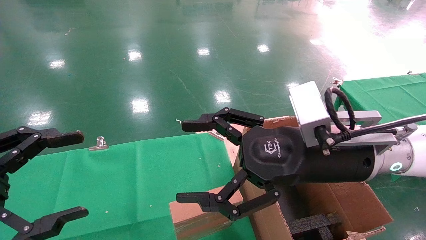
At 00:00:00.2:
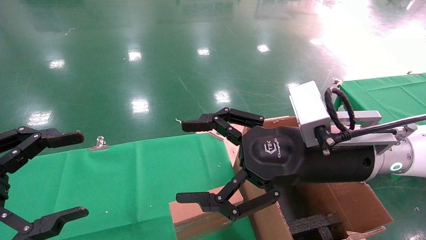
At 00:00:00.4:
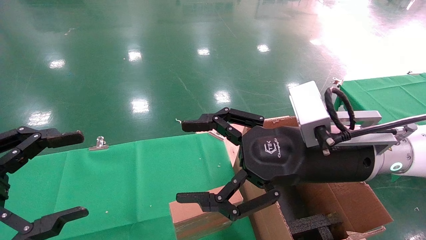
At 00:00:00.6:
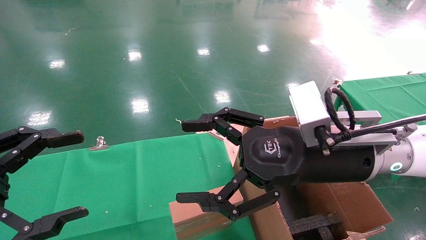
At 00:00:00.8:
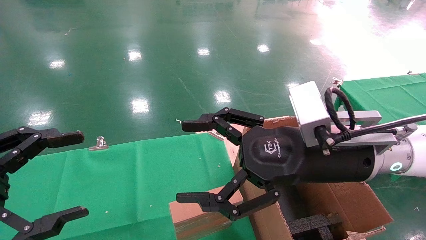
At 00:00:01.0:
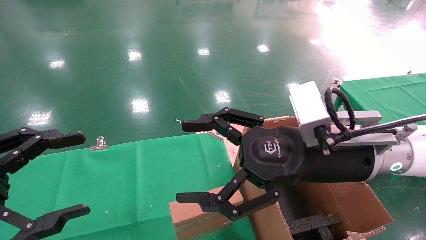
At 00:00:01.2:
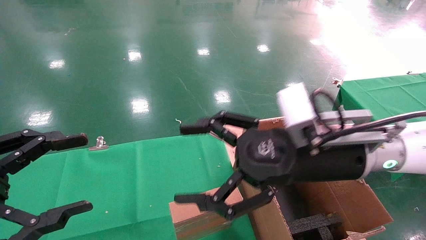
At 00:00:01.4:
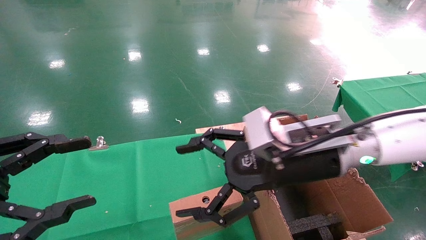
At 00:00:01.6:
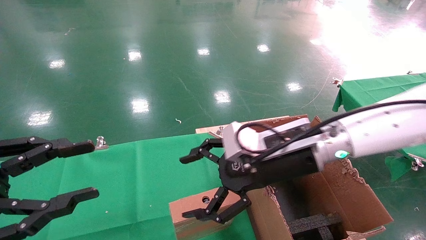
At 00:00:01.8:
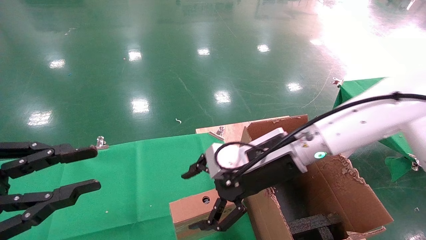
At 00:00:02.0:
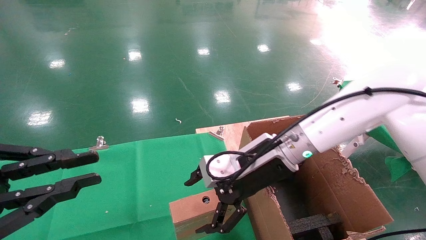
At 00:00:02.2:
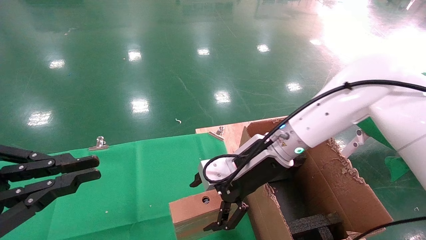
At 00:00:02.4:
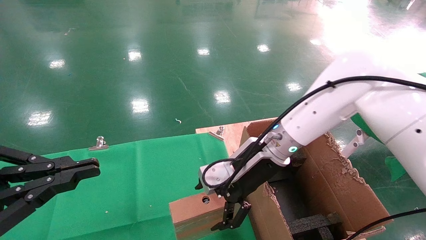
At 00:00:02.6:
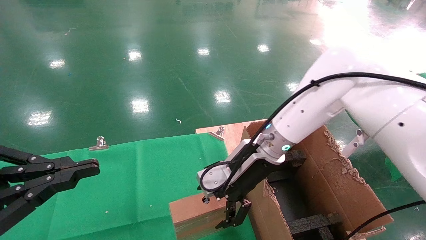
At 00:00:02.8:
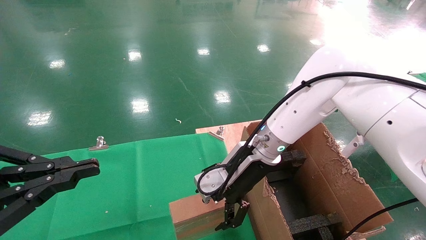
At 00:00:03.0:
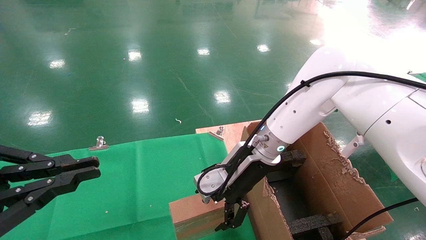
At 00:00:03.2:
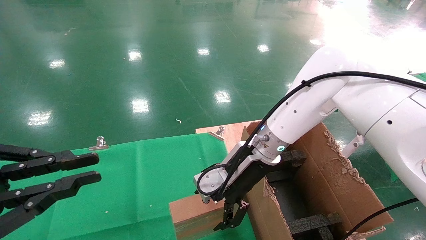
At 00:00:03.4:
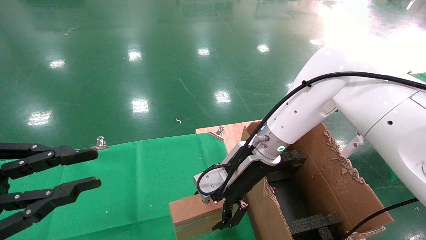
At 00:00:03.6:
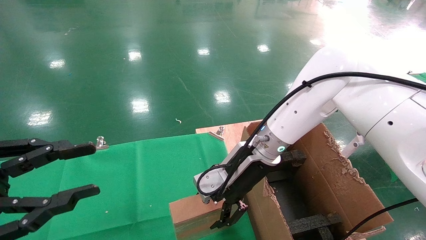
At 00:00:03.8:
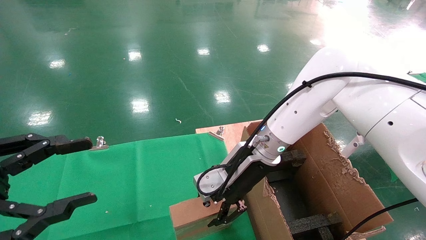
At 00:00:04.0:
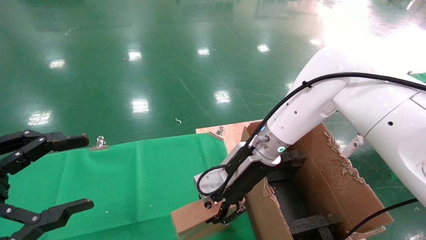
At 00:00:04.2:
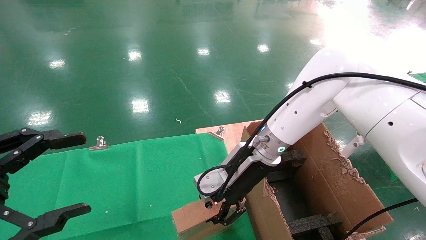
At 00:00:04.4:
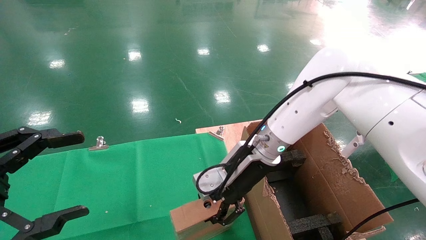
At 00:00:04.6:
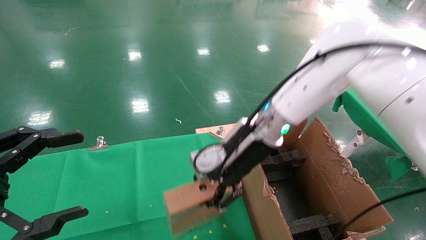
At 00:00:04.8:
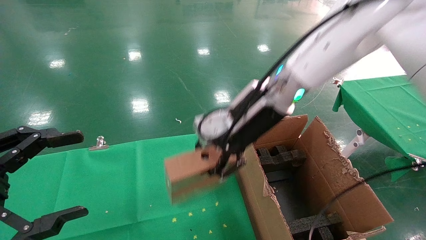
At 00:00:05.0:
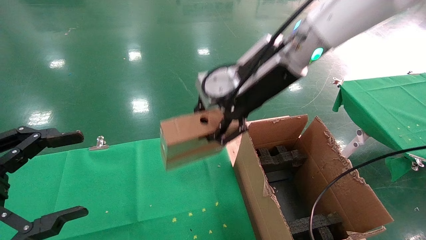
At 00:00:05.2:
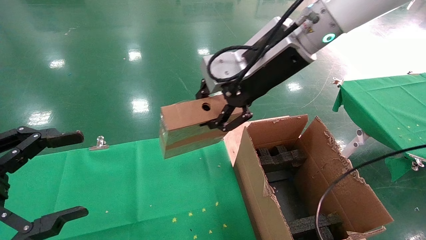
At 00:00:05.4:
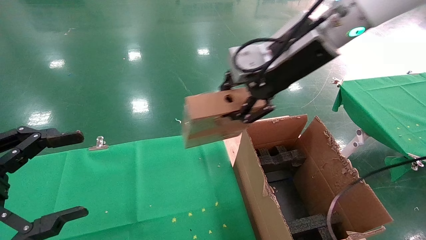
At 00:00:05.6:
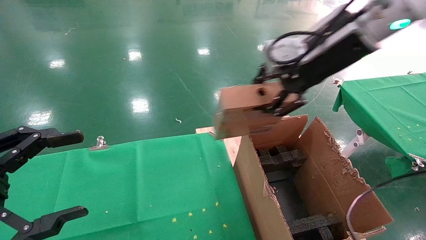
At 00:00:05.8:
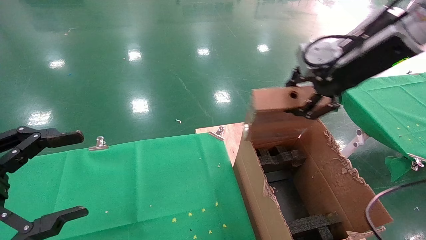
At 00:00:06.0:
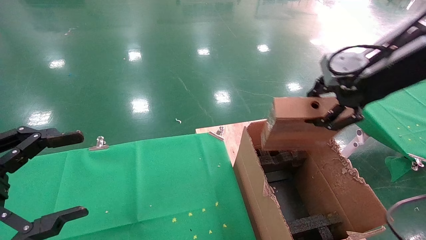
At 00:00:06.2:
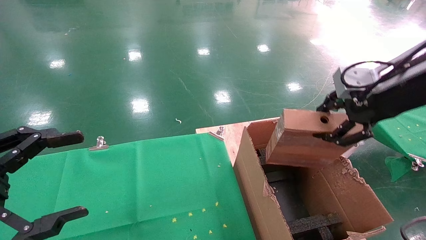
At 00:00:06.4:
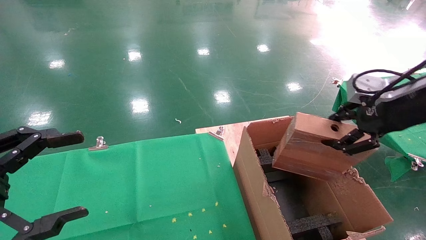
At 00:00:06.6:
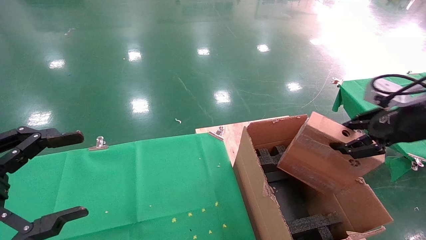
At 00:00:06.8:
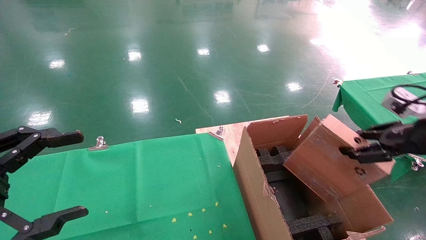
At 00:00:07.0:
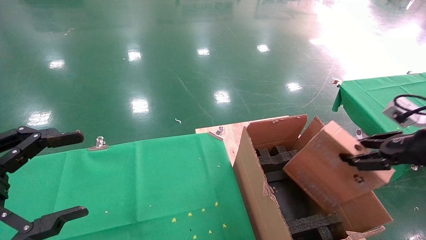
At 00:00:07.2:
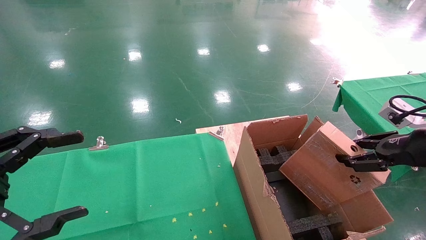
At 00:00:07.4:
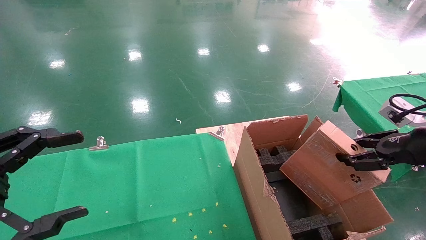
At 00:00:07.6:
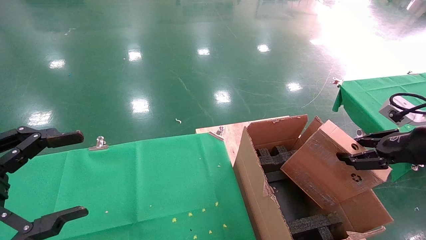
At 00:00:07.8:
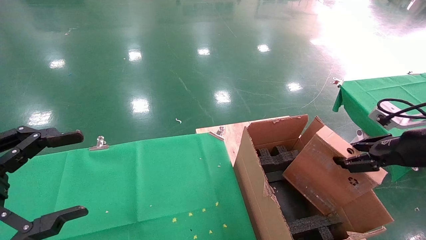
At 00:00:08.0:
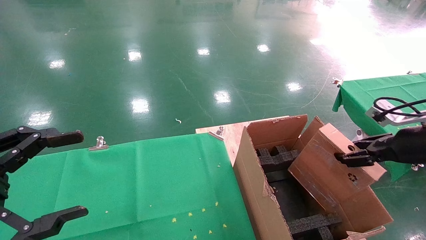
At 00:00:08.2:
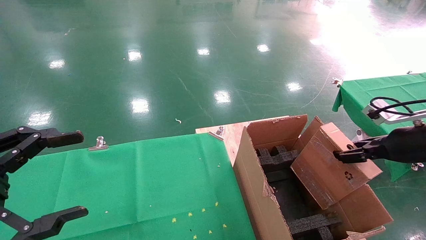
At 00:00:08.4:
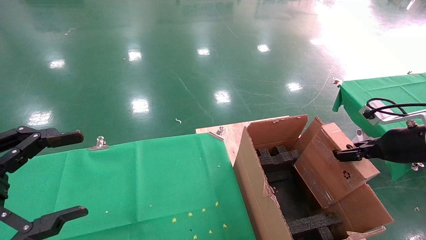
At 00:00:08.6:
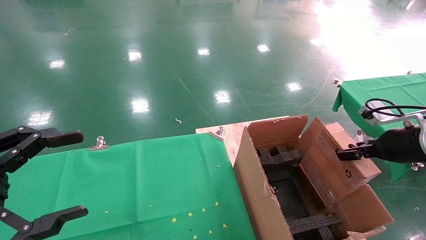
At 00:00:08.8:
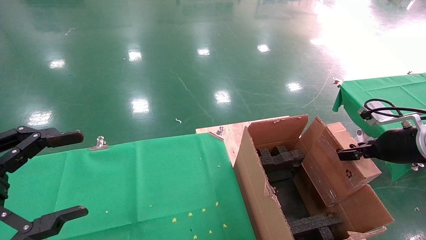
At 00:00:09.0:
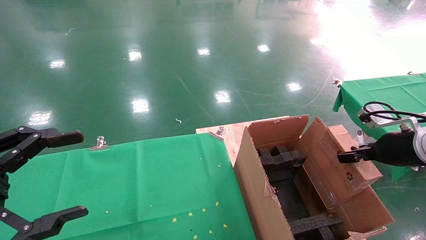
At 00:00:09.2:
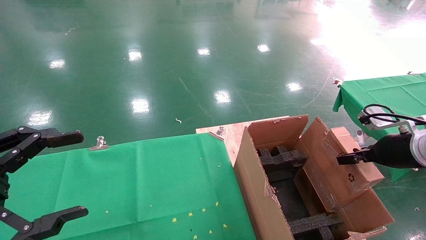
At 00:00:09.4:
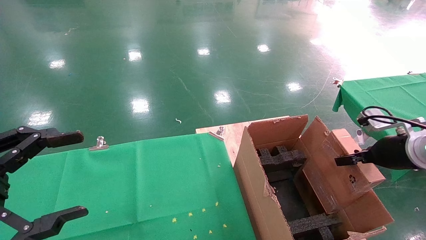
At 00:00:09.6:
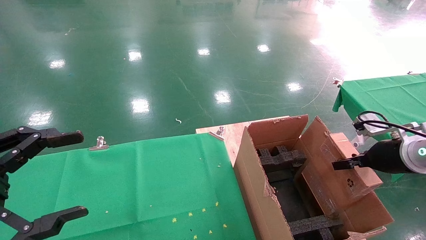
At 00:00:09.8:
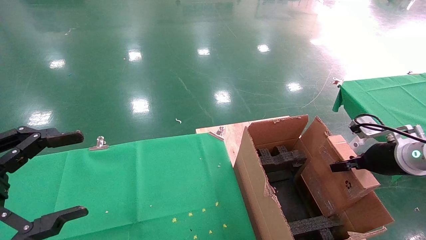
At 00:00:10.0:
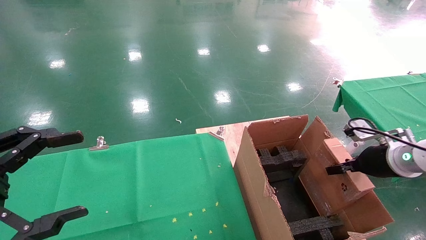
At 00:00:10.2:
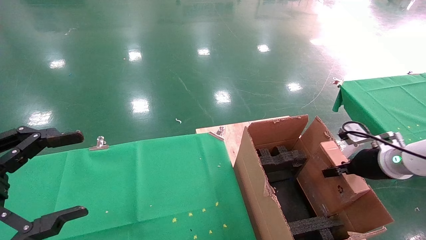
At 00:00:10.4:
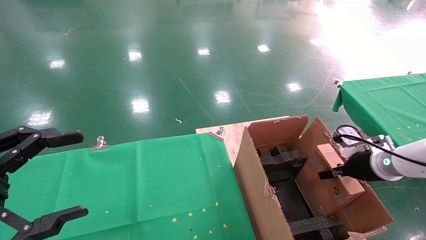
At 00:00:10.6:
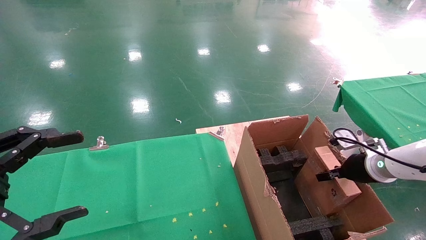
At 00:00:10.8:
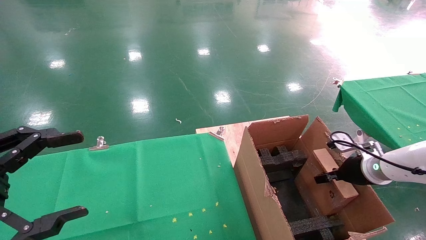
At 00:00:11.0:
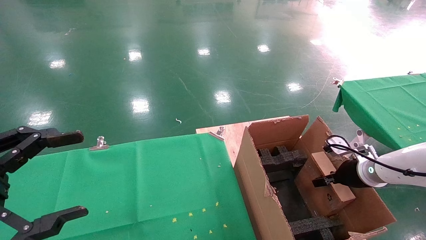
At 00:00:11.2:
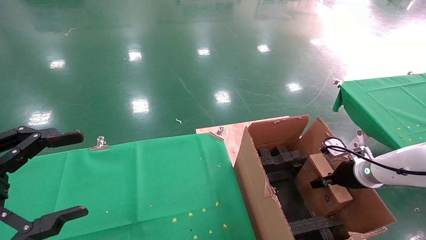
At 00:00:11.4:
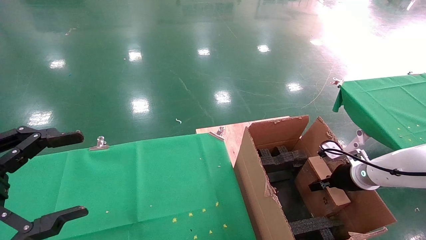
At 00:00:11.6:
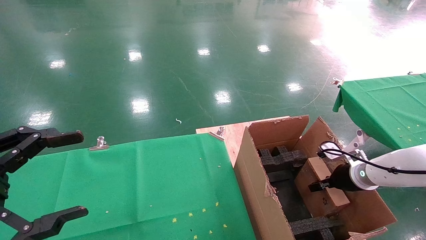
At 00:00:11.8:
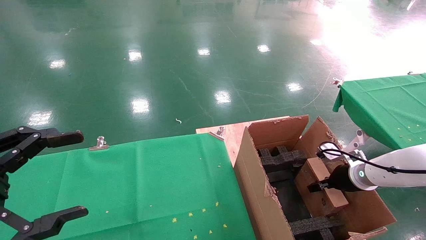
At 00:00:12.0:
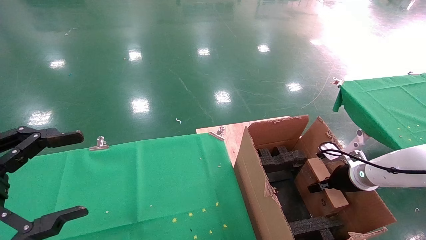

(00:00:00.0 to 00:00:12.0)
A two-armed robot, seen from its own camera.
Task of the whole recording: using a robotic arm to pick up a cardboard box and palace it the carton.
Step, 00:00:01.6 - 00:00:04.4: Pick up the mouse and the power cord paper box.
00:00:00.0 - 00:00:01.6: The left gripper closes up. The right gripper goes approximately 5 cm forward.
00:00:01.6 - 00:00:03.0: The left gripper closes. Meanwhile the right gripper moves forward, approximately 10 cm.
00:00:03.0 - 00:00:04.4: The right gripper closes its fingers; the left gripper opens its fingers.
00:00:04.4 - 00:00:06.0: The right gripper goes some 30 cm to the right, upward and backward.
00:00:06.0 - 00:00:07.6: The right gripper shifts about 20 cm downward and to the right.
00:00:07.6 - 00:00:09.0: The right gripper moves about 5 cm.
00:00:09.0 - 00:00:10.4: The right gripper travels downward and forward by some 10 cm.
00:00:10.4 - 00:00:12.0: The right gripper shifts roughly 5 cm downward.

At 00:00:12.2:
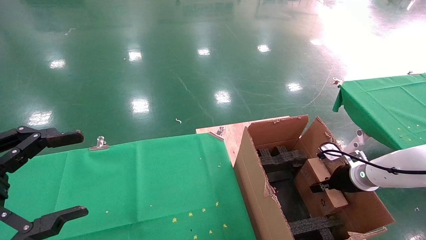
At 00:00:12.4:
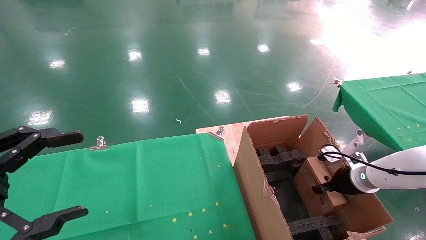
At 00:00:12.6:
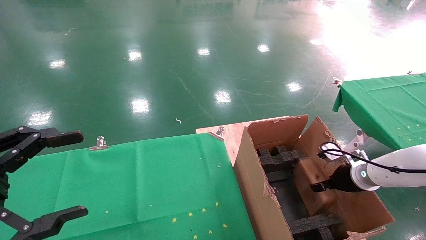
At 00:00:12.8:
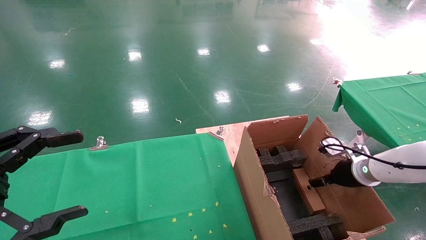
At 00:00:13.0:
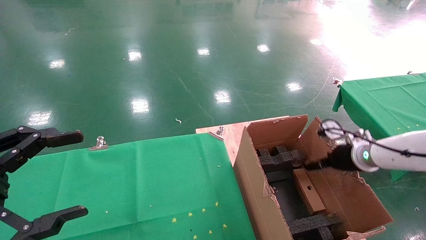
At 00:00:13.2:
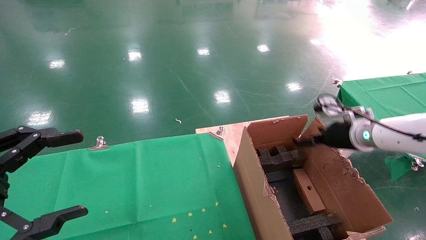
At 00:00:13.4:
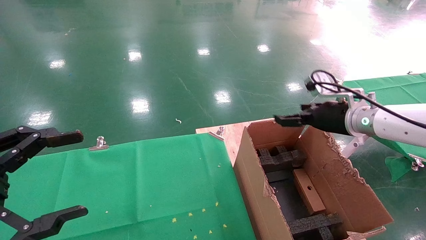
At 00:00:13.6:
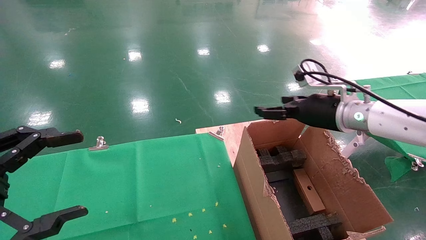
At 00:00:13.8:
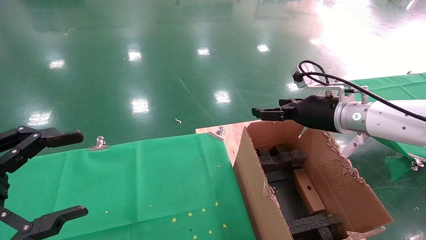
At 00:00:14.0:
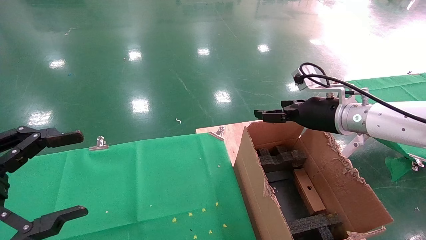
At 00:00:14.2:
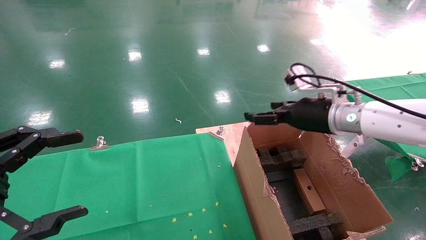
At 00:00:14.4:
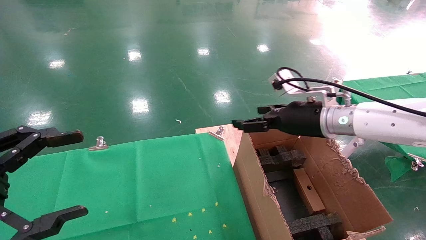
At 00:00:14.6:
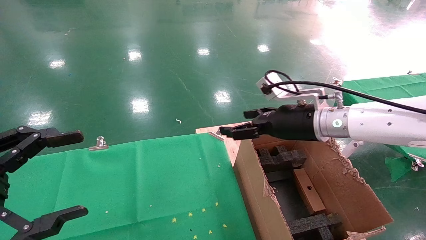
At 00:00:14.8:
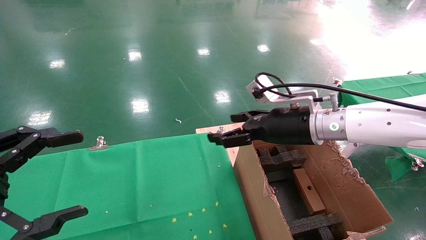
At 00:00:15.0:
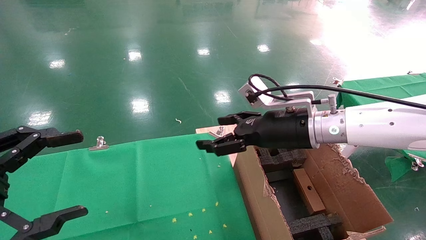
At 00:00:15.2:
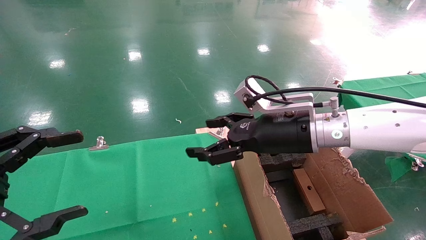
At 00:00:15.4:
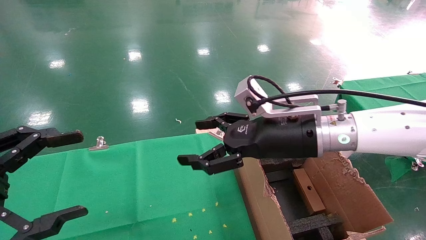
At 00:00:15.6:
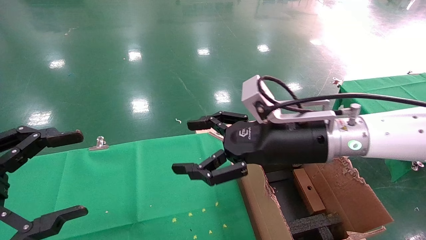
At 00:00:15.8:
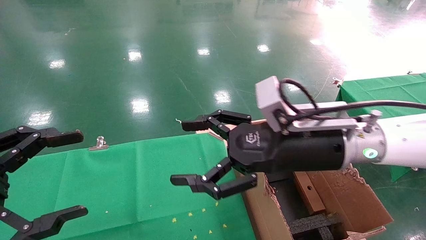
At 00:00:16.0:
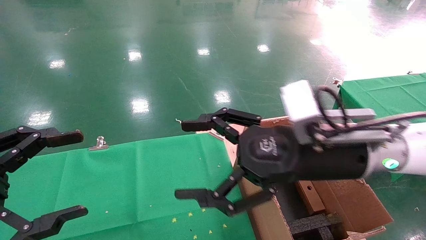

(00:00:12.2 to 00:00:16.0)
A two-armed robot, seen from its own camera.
Task of the whole recording: using a robotic arm to pick up a cardboard box and palace it the carton.
00:00:12.2 - 00:00:13.4: The right gripper shifts approximately 15 cm upward and to the left, and opens its fingers.
00:00:13.4 - 00:00:14.8: The right gripper goes about 10 cm to the left.
00:00:14.8 - 00:00:16.0: The right gripper is displaced backward by roughly 10 cm.
